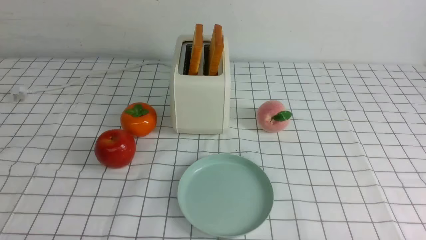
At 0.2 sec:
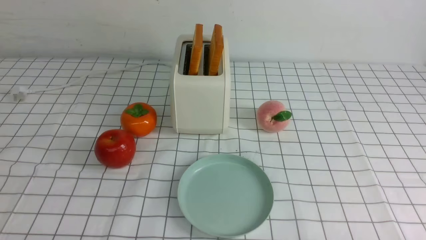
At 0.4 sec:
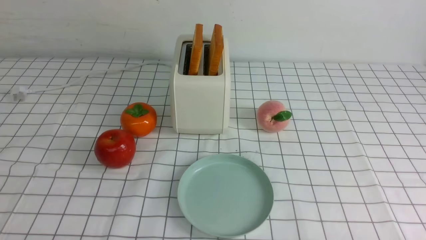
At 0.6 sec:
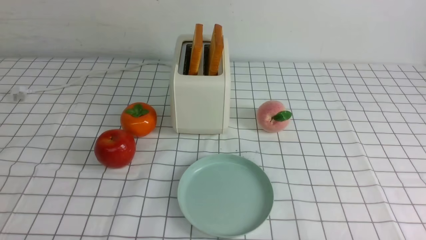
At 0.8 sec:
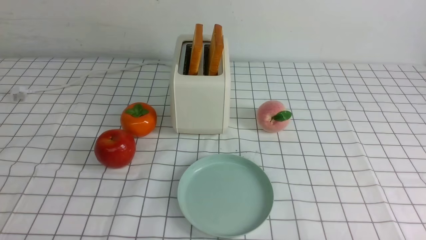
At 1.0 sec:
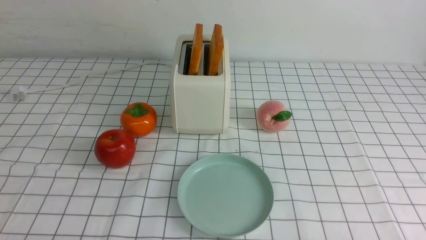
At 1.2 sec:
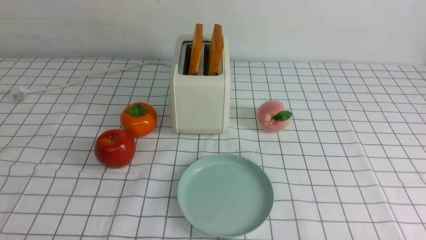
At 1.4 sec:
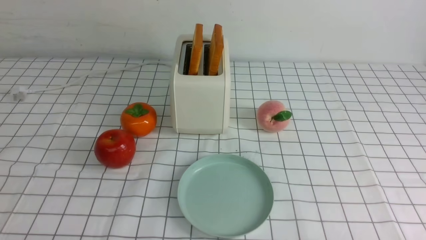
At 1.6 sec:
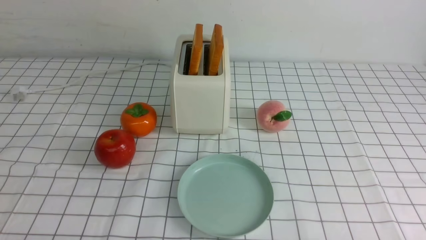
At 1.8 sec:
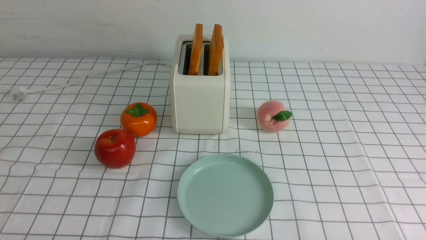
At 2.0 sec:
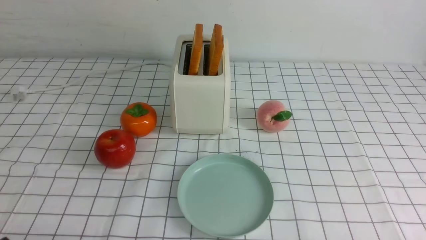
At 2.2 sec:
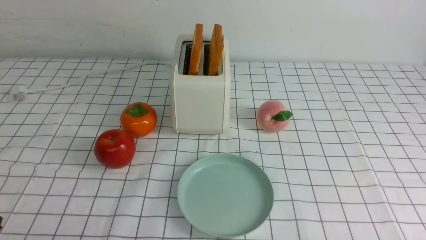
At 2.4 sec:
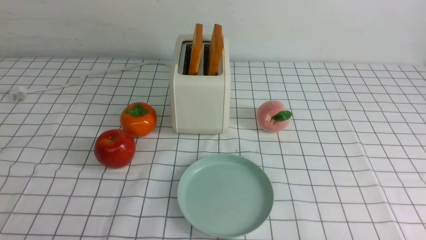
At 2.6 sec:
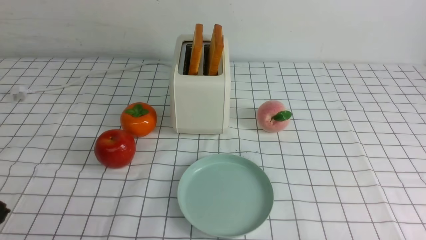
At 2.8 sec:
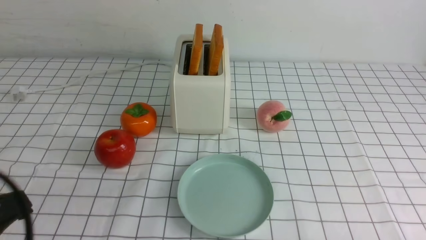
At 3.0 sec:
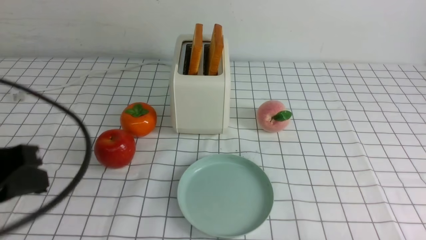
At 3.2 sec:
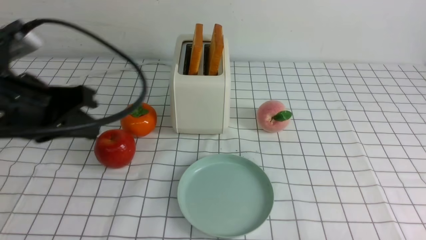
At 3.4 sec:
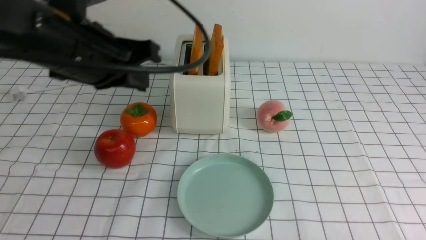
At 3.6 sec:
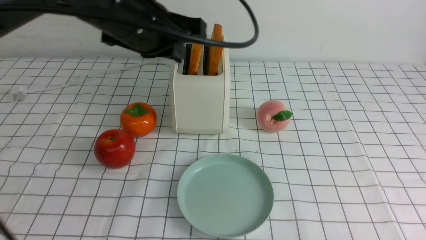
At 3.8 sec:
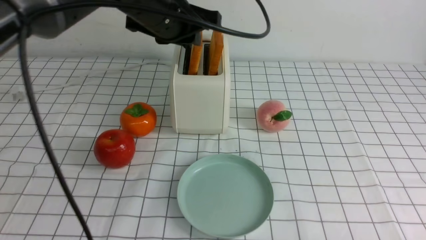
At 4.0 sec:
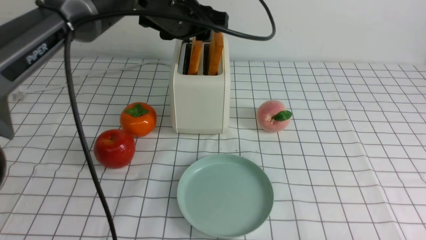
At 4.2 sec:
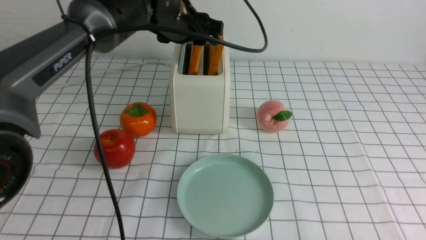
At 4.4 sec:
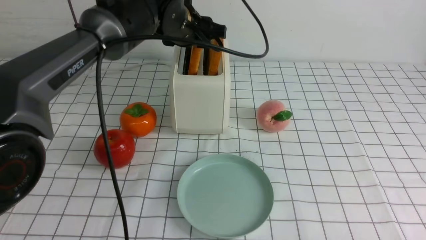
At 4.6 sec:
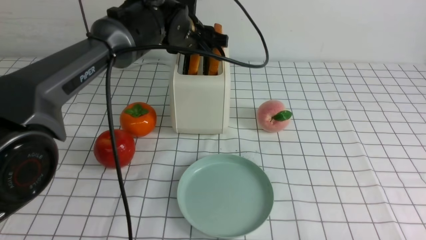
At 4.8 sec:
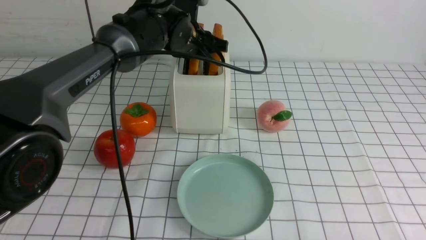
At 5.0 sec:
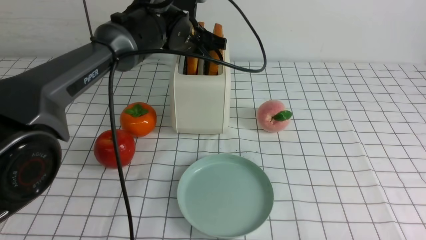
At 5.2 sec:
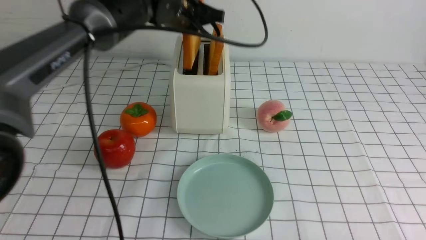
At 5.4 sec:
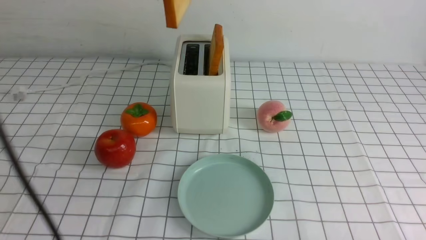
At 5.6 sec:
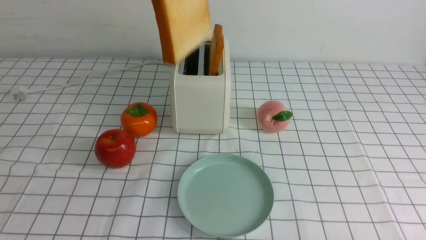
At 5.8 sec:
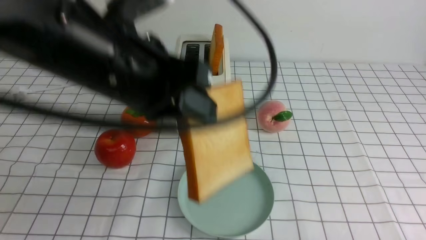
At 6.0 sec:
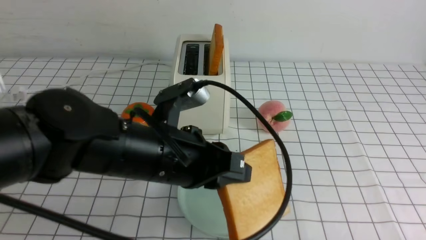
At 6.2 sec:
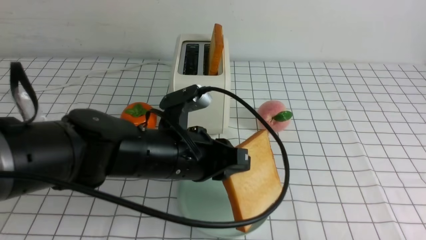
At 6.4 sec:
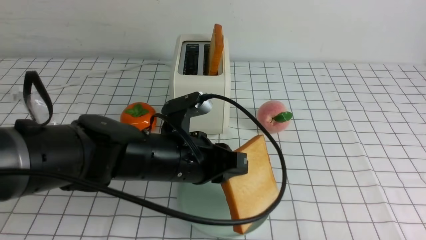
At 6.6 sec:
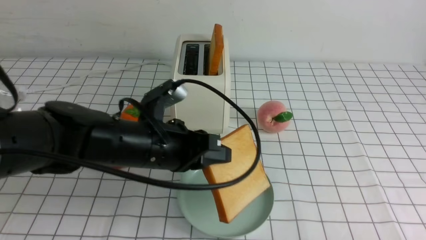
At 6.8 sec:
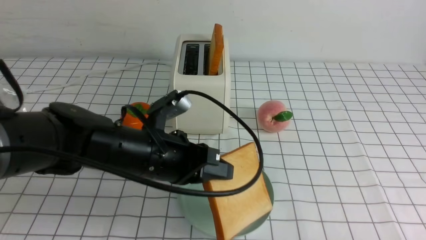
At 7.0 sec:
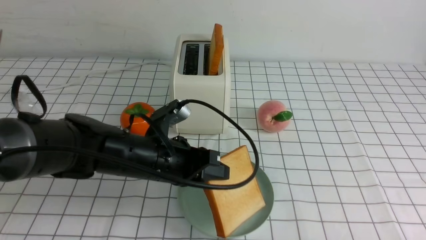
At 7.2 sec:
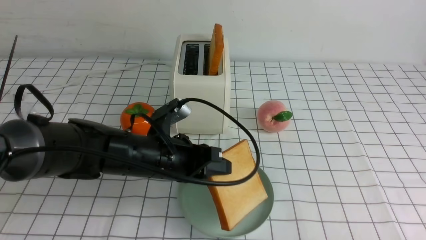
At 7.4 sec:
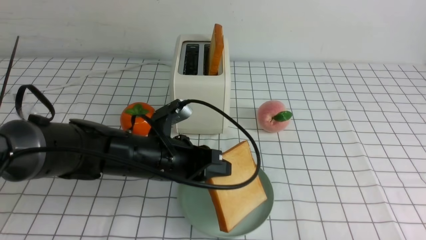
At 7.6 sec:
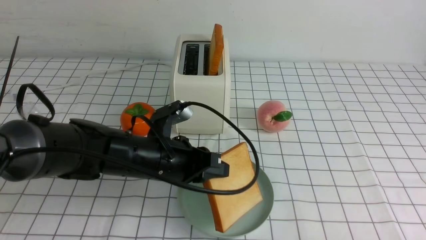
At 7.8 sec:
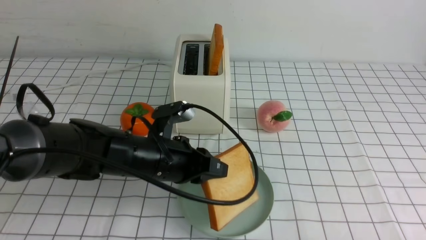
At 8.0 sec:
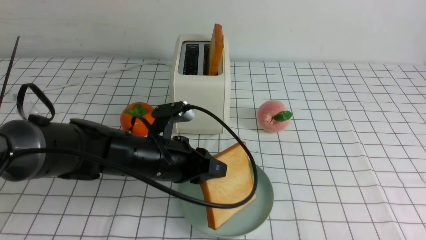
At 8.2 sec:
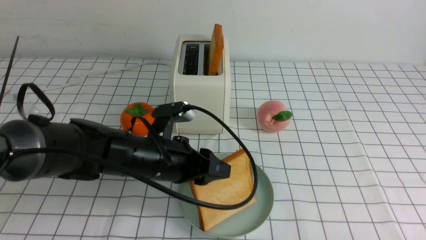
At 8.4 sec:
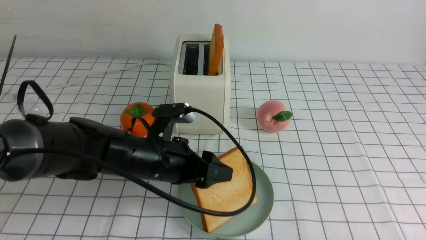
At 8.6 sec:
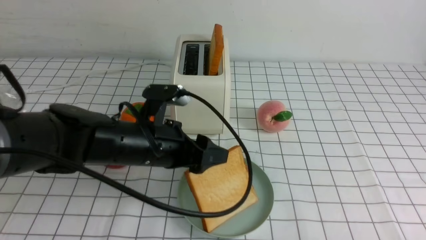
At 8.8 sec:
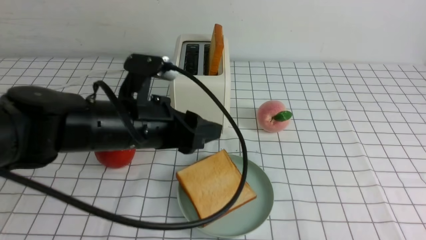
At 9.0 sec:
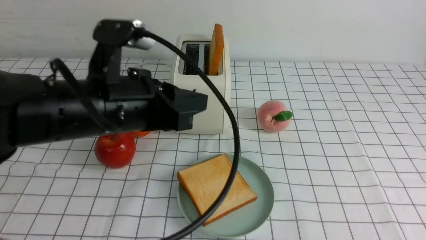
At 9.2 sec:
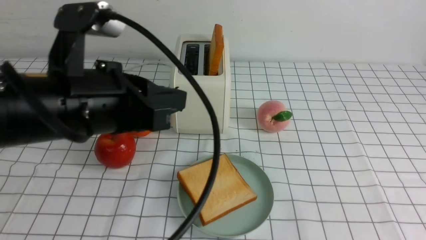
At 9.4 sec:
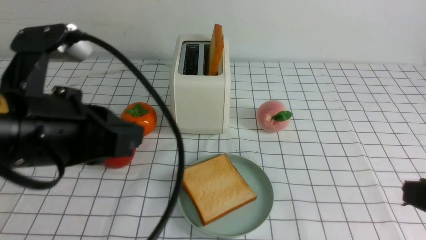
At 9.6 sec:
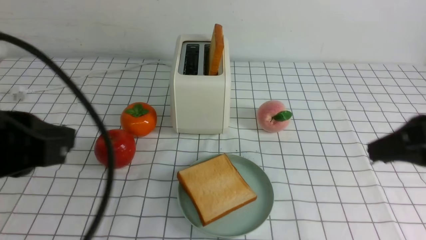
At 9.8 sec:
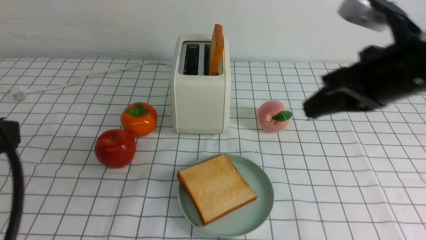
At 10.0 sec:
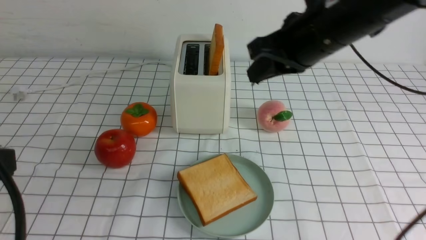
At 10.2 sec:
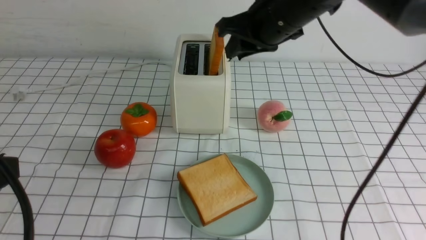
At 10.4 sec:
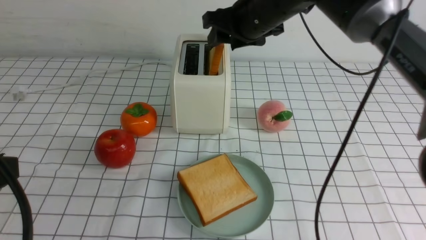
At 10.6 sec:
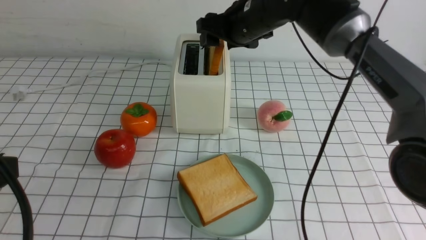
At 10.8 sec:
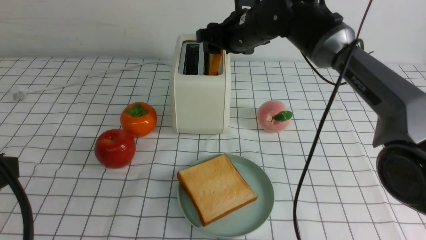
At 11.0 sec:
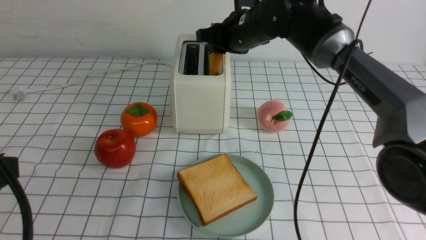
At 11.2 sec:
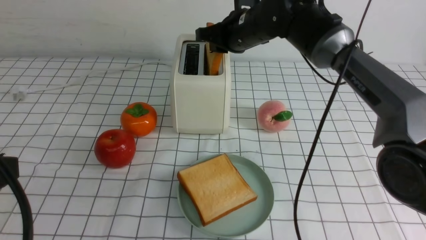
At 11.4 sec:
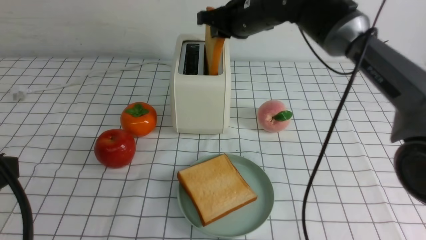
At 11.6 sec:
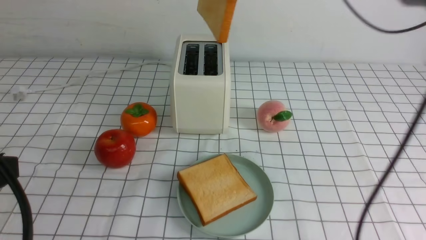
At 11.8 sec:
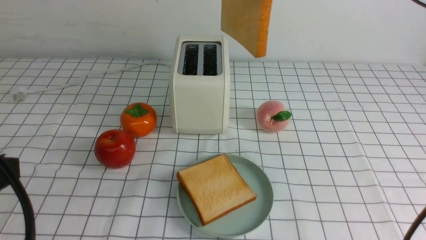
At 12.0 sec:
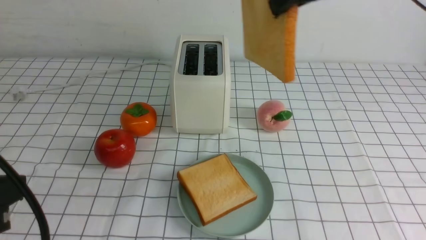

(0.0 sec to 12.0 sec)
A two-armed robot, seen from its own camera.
Task of the whole recording: take toasted bread from bread machine on white checkered table place on plate.
Step, 0.0 sec - 5.2 sec: use the left arm to take out a slice of bread.
Step, 5.4 sec - 8.8 sec: use the left arm to put a slice of bread into the empty plate.
Step, 9.0 sec - 11.4 sec: use the right arm to take out a slice of bread.
0.0 sec - 1.6 sec: Both grippers stay about where they are.
1.6 sec - 3.0 sec: The left gripper moves upward and forward, some 20 cm, and closes up.
3.0 sec - 4.4 sec: The left gripper heads forward and to the right, covering roughly 35 cm, and opens up.
4.4 sec - 6.0 sec: The left gripper shifts about 20 cm backward, and closes.
6.0 sec - 7.6 sec: The left gripper moves downward and forward, approximately 10 cm.
7.6 sec - 9.0 sec: The right gripper goes about 5 cm upward; the left gripper is displaced upward and backward by about 15 cm, and opens and closes again.
9.0 sec - 10.4 sec: The left gripper heads backward and to the left, covering some 20 cm, and closes. The right gripper heads forward and to the left, covering about 40 cm, and opens.
10.4 sec - 12.0 sec: The right gripper travels backward, upward and to the right by roughly 20 cm, and closes up.

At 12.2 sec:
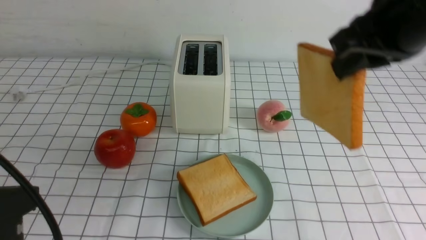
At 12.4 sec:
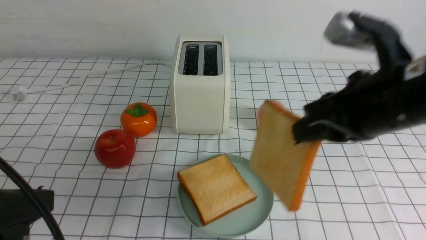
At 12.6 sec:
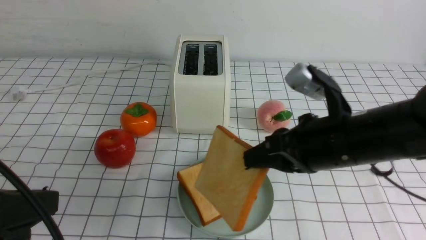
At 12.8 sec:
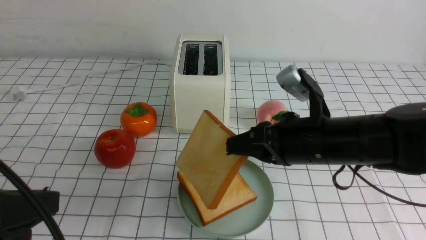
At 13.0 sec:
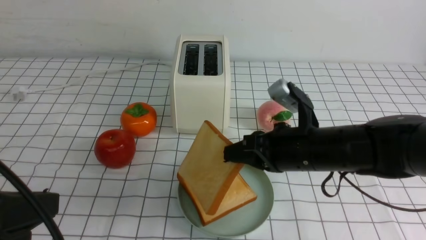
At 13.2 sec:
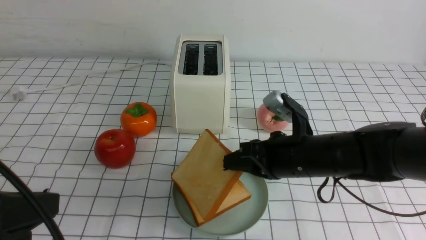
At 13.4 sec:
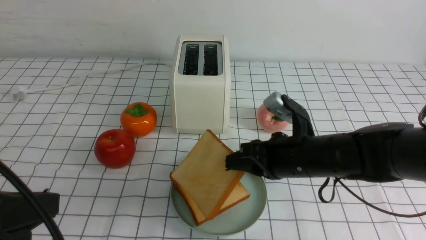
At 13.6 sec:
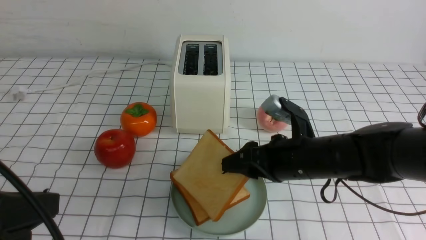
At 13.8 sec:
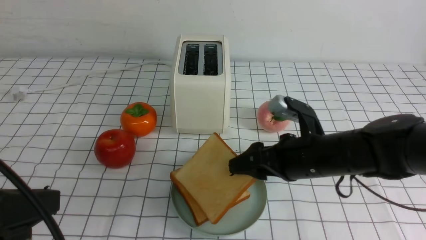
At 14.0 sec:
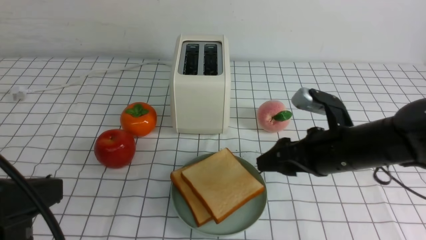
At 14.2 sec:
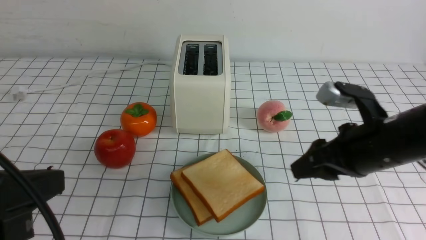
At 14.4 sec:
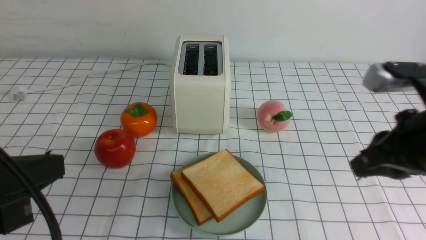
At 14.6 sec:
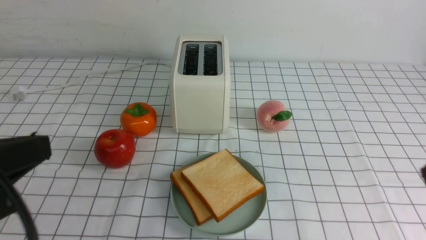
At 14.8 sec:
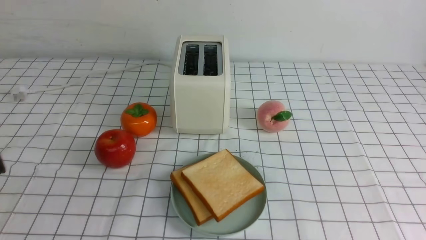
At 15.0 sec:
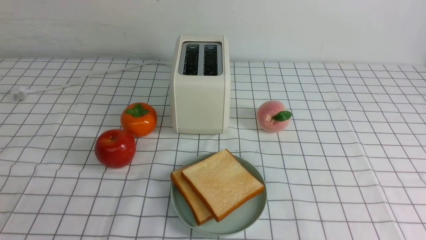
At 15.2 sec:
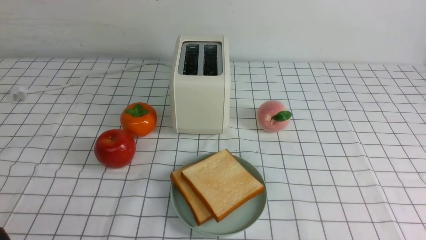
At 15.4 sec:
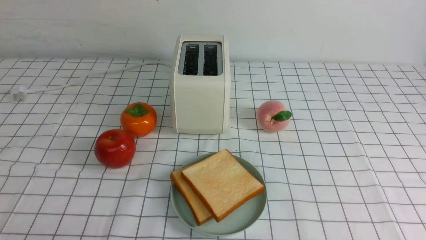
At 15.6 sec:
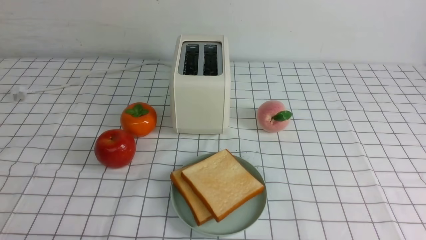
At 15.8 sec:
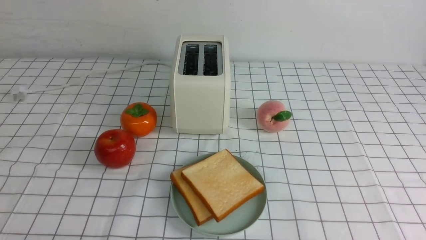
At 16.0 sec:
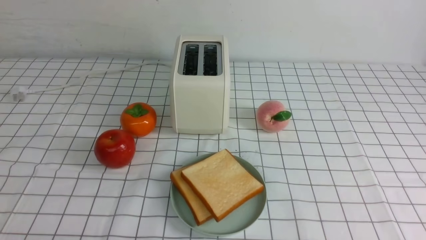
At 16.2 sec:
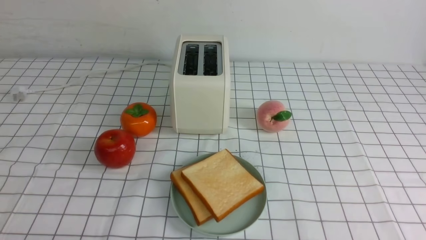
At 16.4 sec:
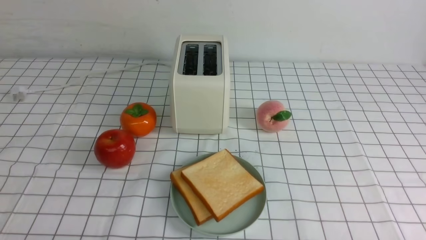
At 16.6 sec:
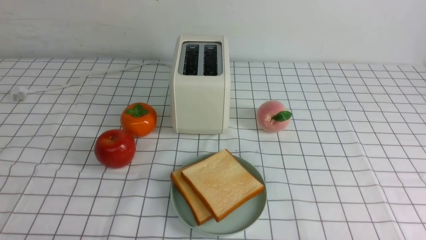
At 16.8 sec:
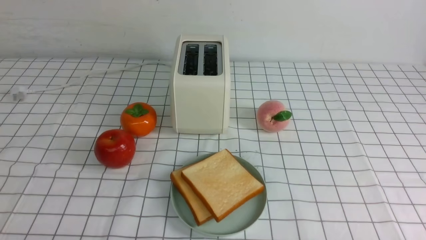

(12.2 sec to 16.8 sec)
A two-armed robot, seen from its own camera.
Task of the whole recording: take toasted bread from bread machine on white checkered table place on plate.
Step, 12.2 sec - 13.8 sec: use the right arm to put a slice of bread into the plate.
12.2 sec - 13.8 sec: The right gripper heads downward, covering some 20 cm, and opens up.
13.8 sec - 15.2 sec: The left gripper moves downward and backward, some 10 cm. The right gripper moves backward and to the right, about 30 cm, and closes up.
